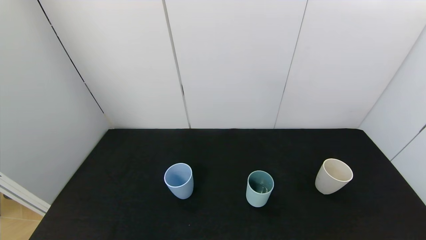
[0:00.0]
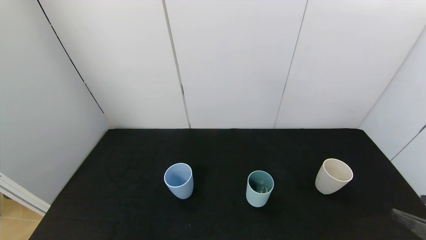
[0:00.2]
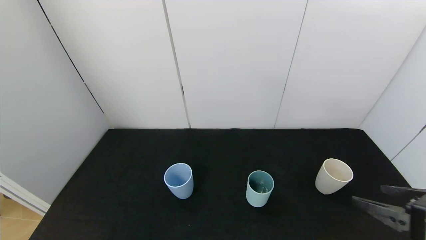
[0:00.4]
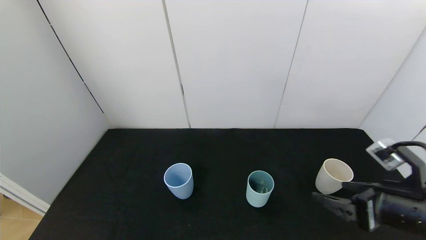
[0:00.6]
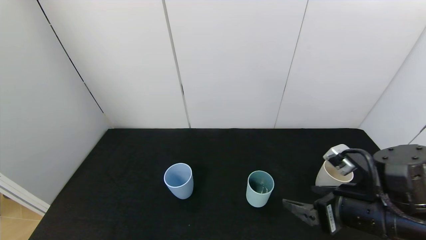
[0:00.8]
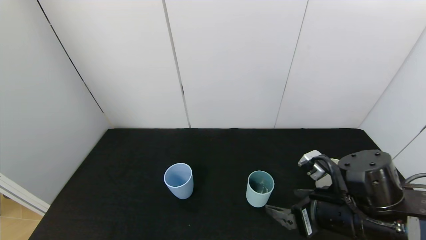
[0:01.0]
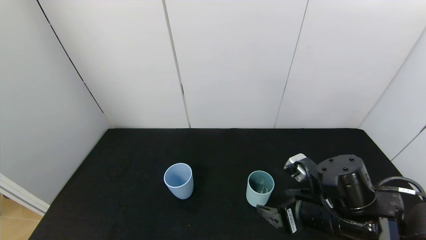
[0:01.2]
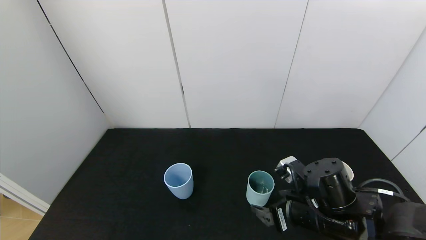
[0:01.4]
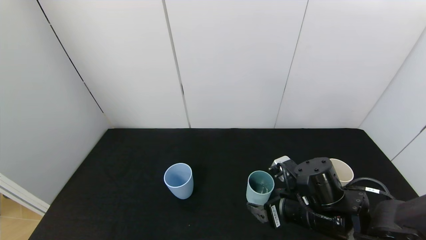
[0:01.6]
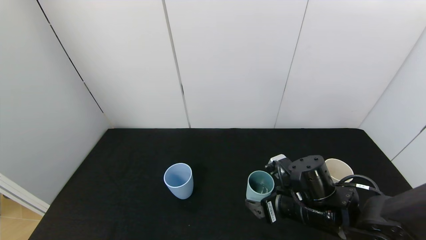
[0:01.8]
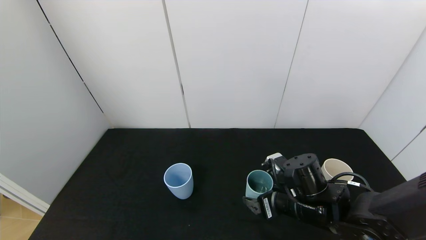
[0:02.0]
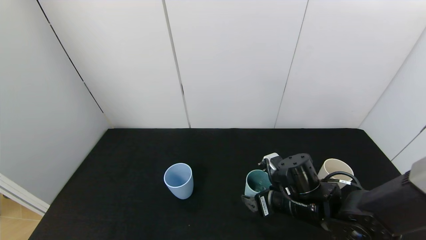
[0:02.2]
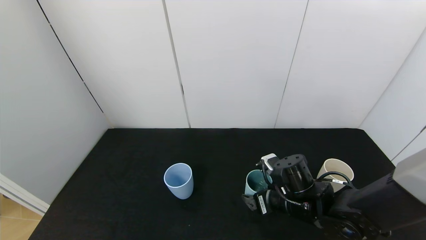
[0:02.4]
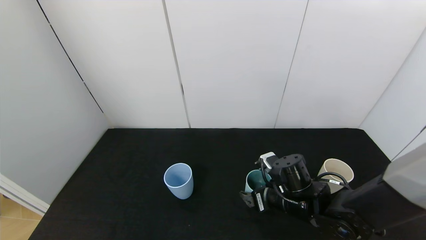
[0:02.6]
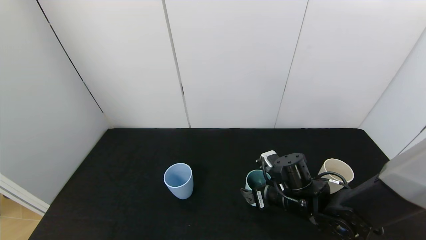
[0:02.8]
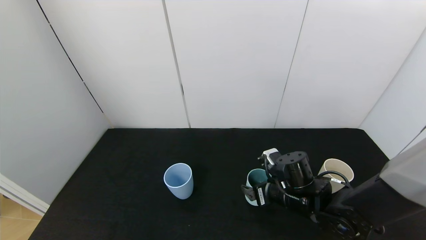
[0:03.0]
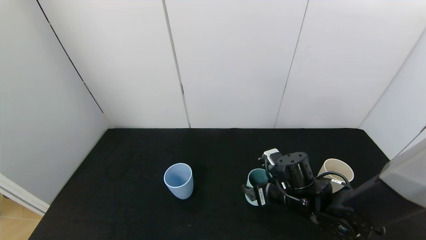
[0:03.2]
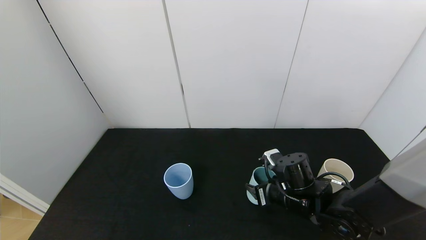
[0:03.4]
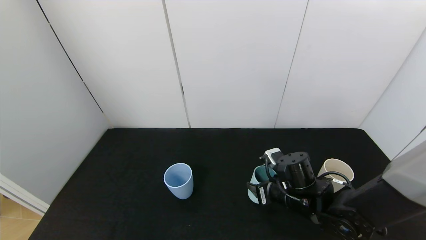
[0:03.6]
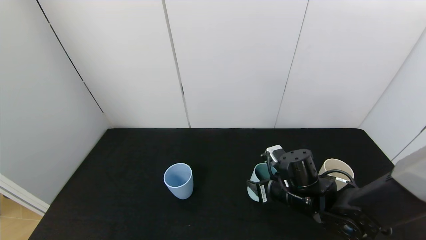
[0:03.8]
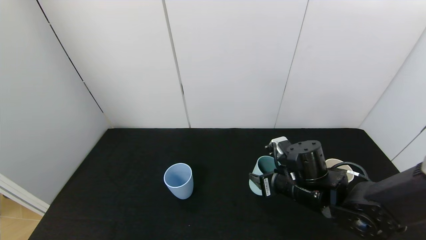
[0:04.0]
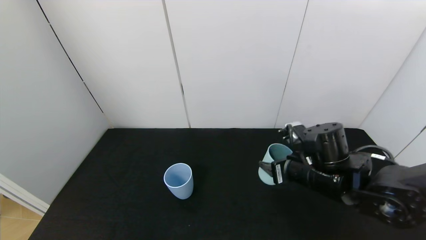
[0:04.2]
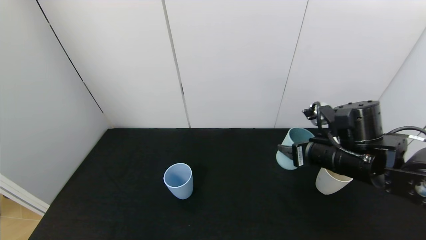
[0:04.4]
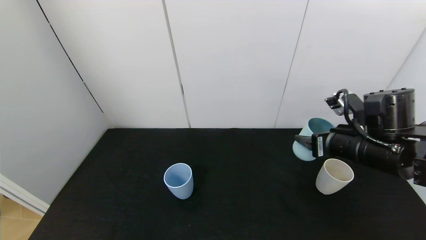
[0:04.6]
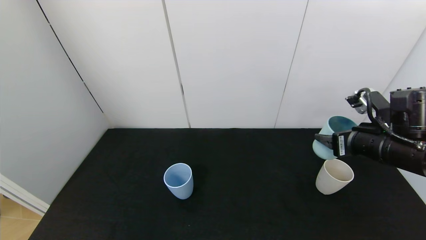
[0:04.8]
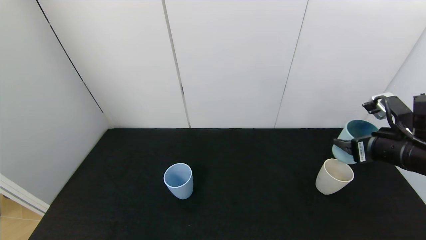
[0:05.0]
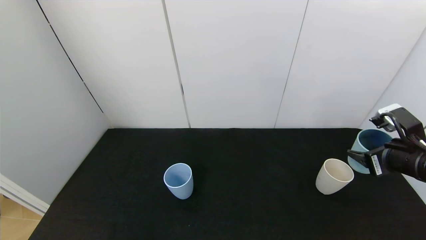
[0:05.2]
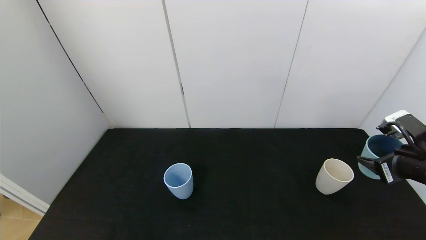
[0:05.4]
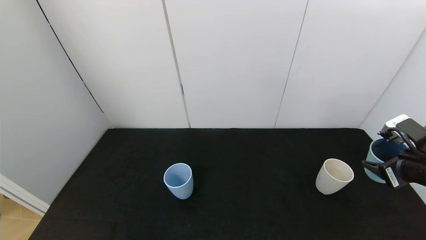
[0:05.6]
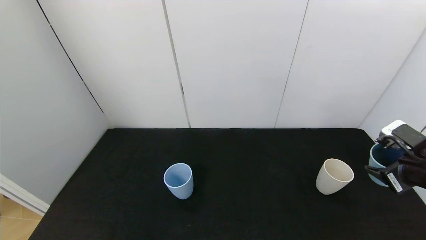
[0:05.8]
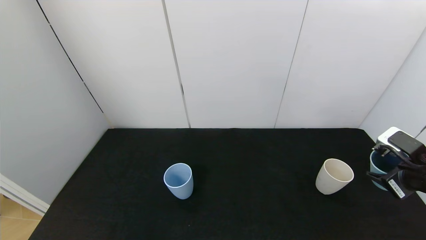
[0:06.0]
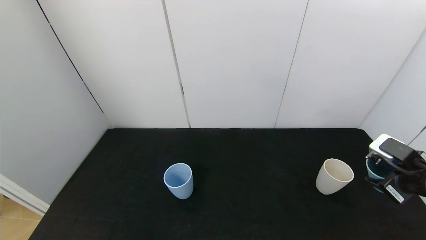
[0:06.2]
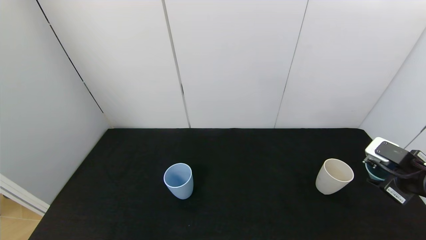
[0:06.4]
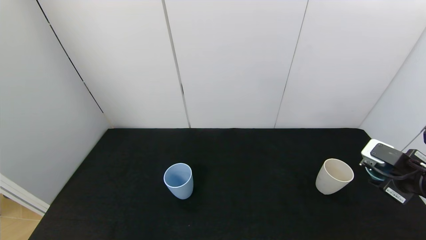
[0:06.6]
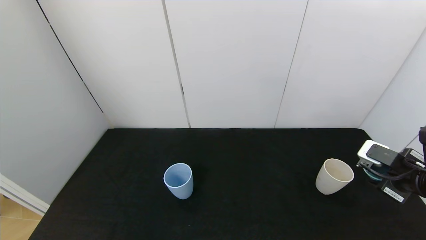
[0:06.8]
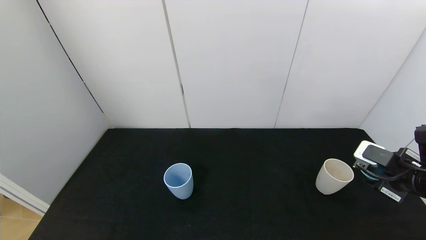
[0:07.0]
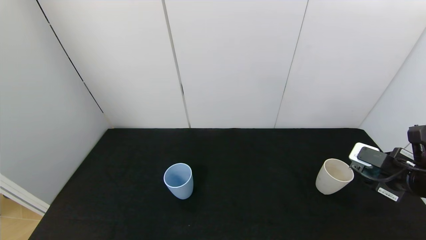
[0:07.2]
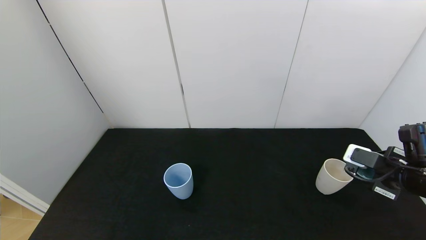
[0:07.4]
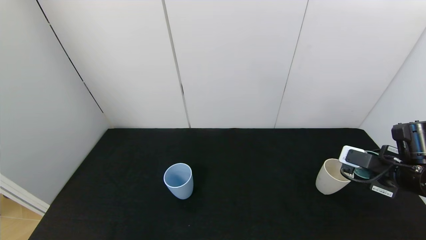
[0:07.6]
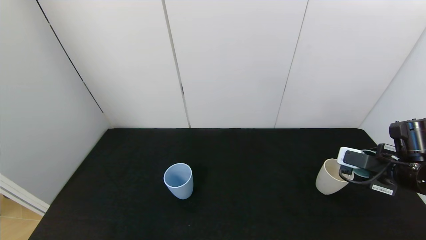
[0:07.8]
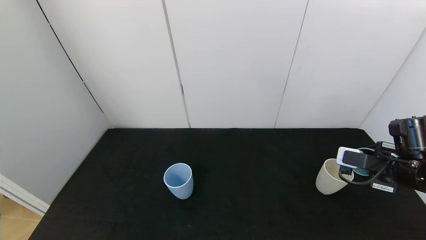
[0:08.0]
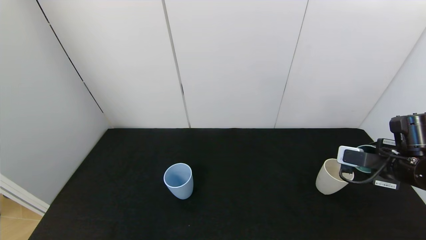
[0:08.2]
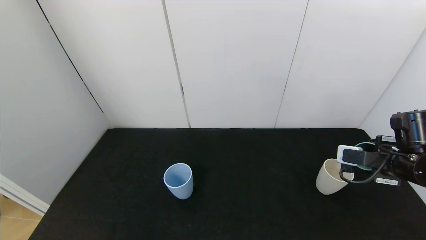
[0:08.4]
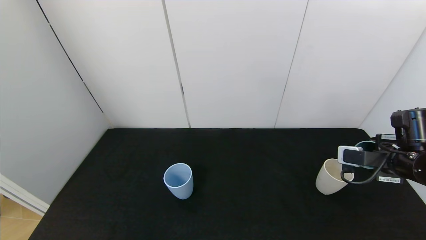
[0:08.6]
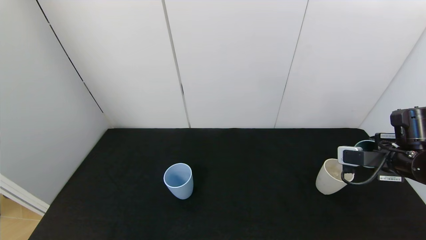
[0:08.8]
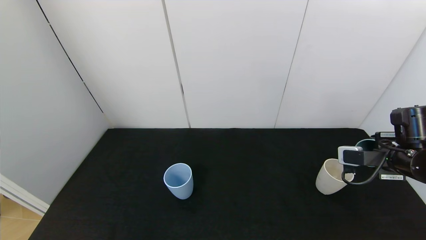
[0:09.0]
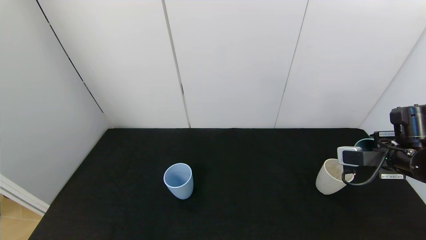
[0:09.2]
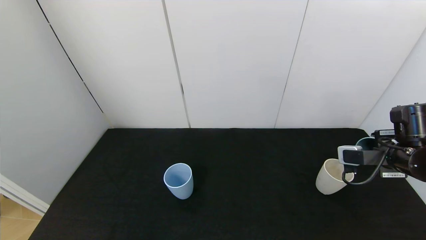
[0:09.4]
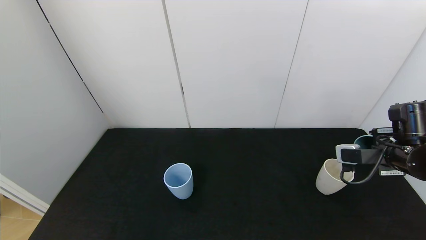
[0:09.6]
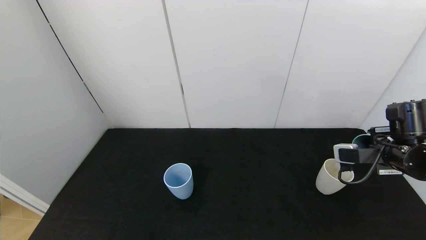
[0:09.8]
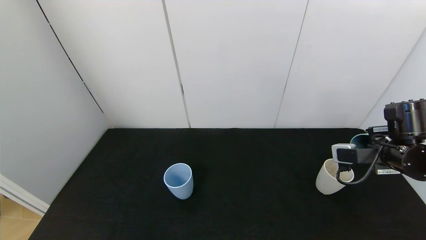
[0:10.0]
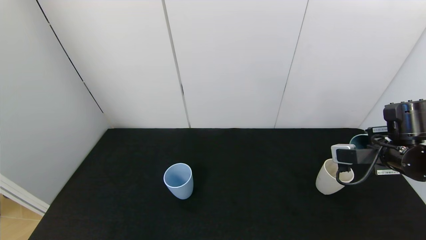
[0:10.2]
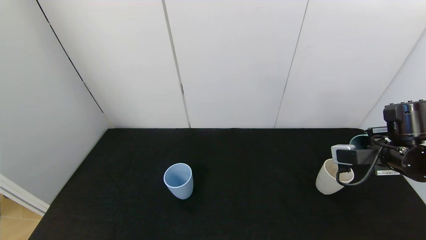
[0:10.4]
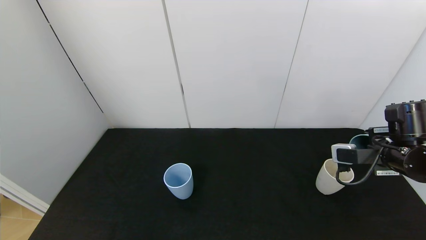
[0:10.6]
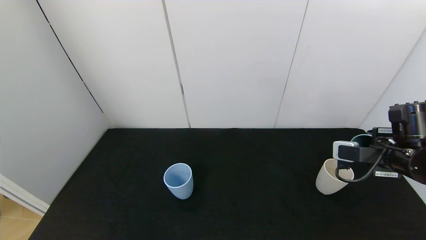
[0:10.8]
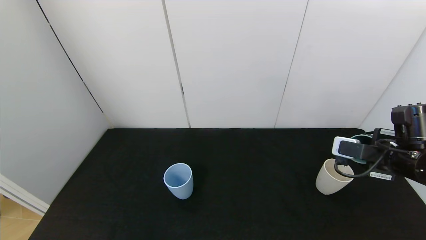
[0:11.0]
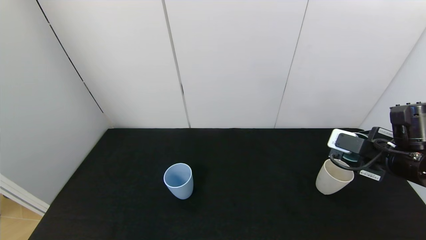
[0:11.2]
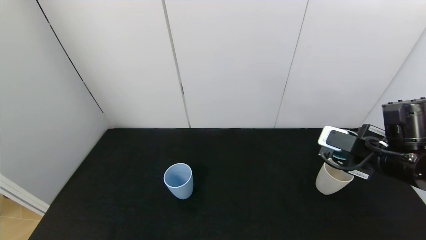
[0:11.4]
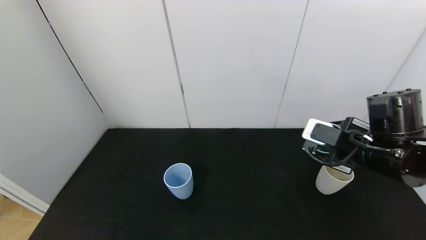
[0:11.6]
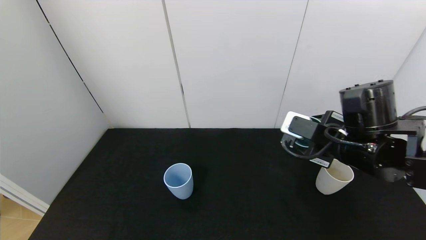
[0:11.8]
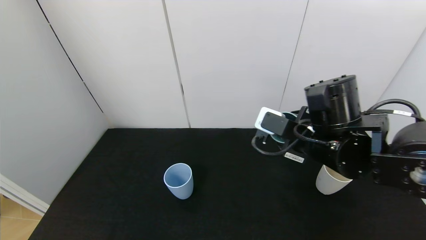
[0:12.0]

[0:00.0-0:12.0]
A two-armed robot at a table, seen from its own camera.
Task of the whole recording: use the gripper to pour the water into the other two cups on black table.
Step, 0:00.0 to 0:03.6: Grasp the green cup with the right gripper.
Step, 0:03.8 to 0:10.6: Pour water from green cup to white cup with the right gripper.
0:00.0 to 0:01.6: The right gripper heads forward, to the left and downward, covering some 30 cm.
0:01.6 to 0:03.0: The right gripper travels forward by roughly 5 cm.
0:03.0 to 0:04.4: The right gripper moves upward and to the right, approximately 15 cm, and closes its fingers.
0:04.4 to 0:06.0: The right gripper moves to the right and backward, some 15 cm.
0:09.0 to 0:10.4: The grippers make only small movements.
0:10.4 to 0:12.0: The right gripper travels to the left by roughly 15 cm.

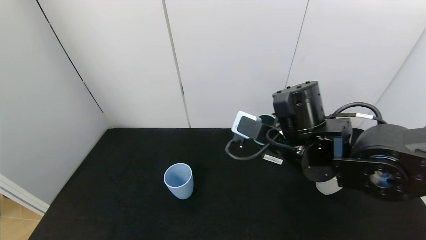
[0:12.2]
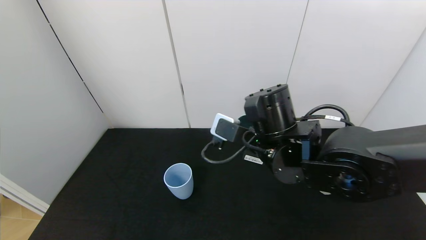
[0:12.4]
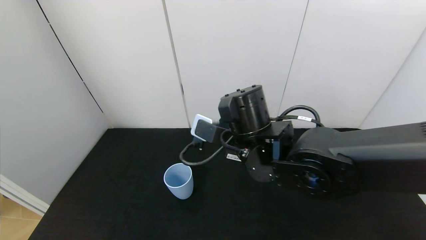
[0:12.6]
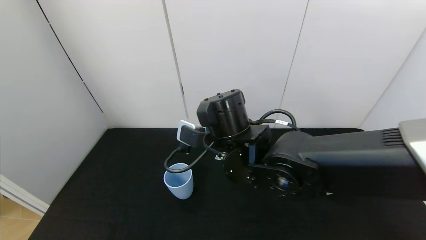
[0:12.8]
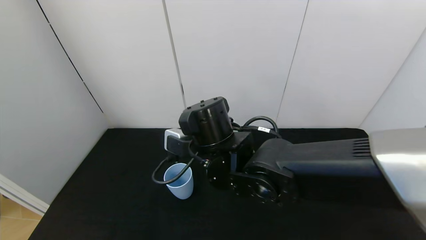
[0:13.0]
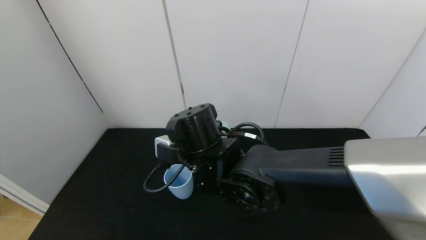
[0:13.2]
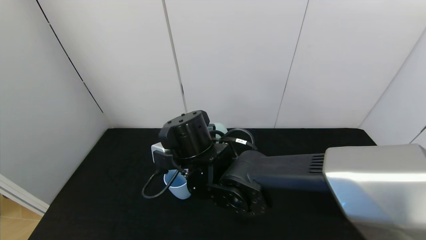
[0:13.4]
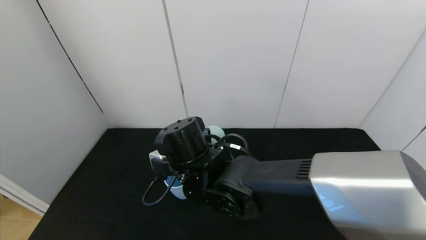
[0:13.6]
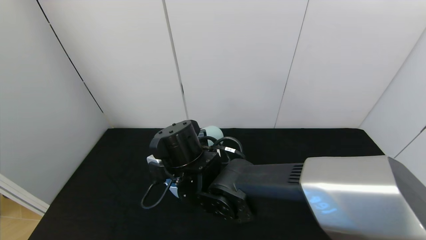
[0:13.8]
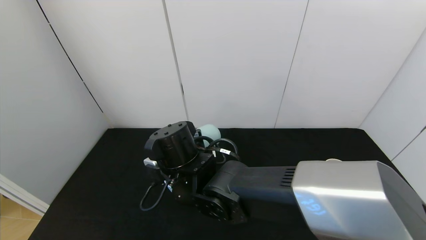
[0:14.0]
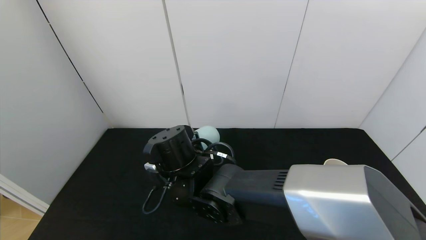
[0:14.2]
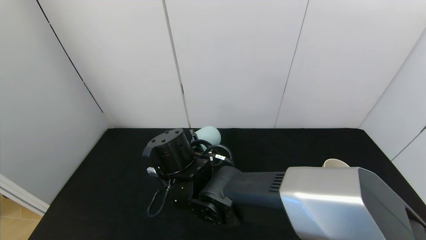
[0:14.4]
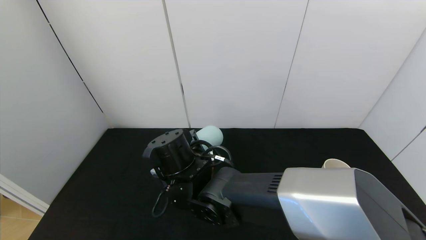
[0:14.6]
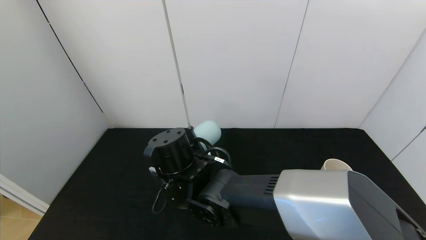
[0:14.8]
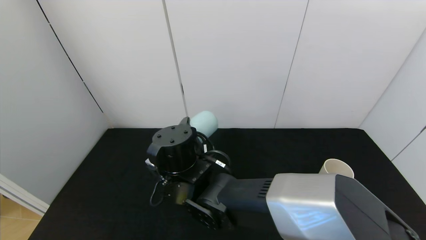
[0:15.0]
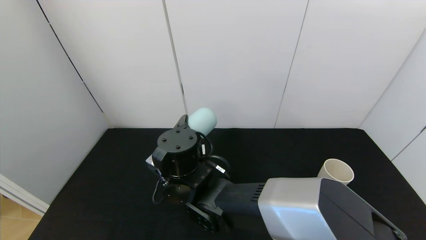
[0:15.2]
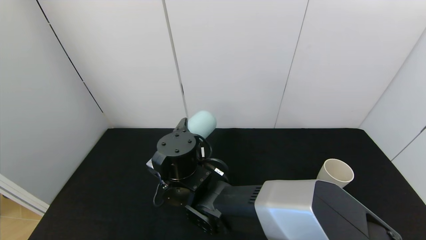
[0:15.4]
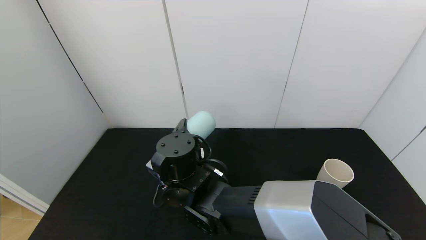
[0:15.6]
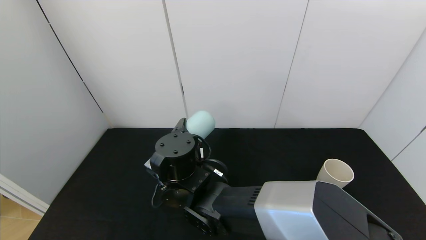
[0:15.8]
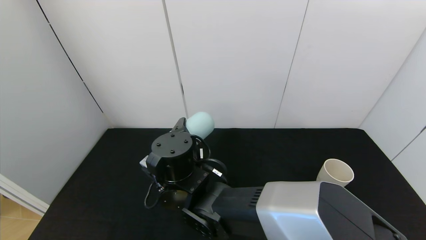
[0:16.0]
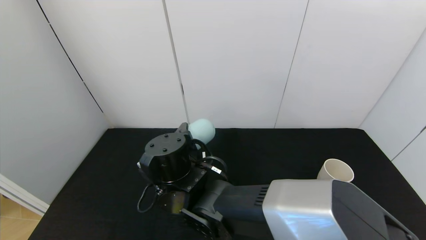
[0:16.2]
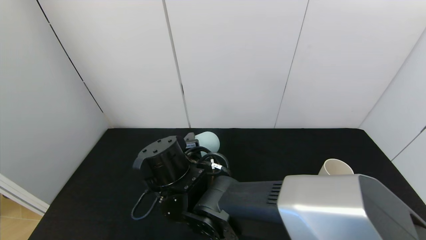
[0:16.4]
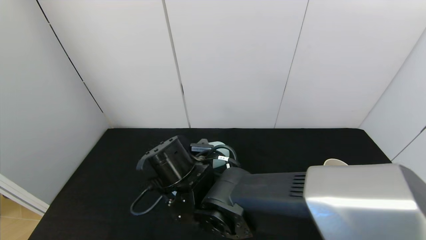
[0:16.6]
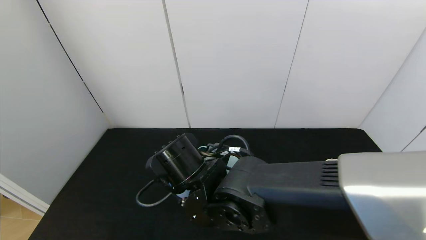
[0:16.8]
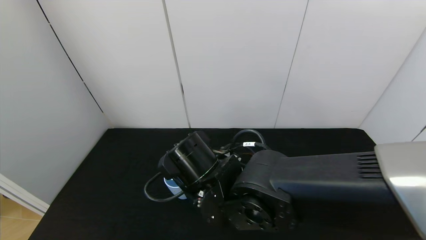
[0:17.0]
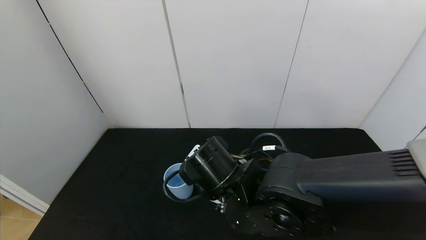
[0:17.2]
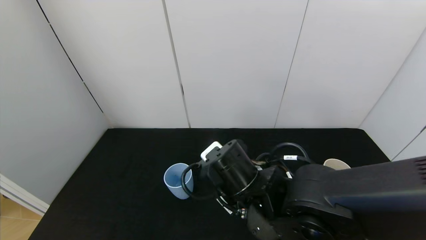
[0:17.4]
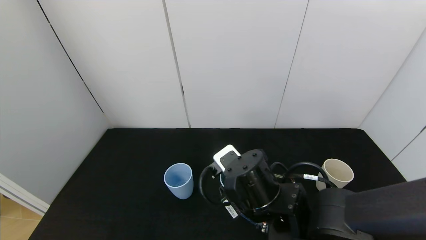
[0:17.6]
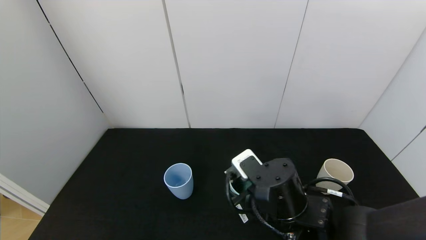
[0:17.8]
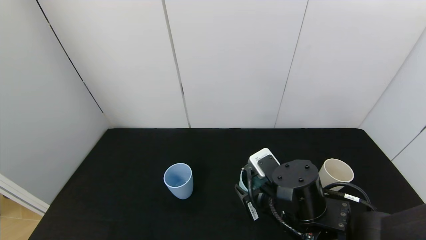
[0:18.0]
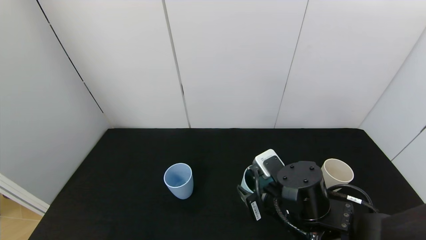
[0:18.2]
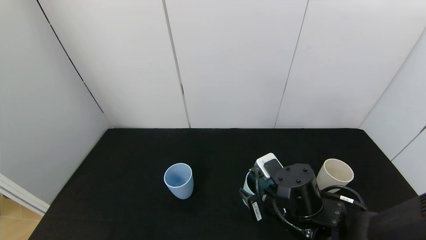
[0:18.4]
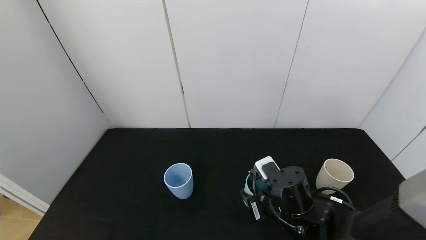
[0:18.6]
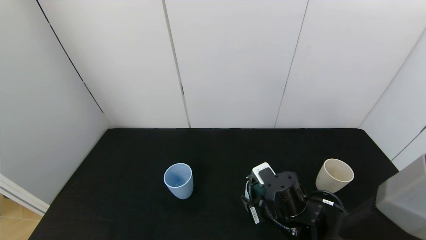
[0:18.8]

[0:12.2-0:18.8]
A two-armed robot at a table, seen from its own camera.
Task of the whole recording: use the gripper to pour the water into the other two cups on black table.
Step, 0:12.2 to 0:16.0: Pour water from green cup to blue cup with the right gripper.
0:12.2 to 0:13.8: The right gripper is displaced to the left by some 15 cm.
0:15.4 to 0:17.2: The right gripper is displaced to the right and backward by some 10 cm.
0:17.2 to 0:18.8: The right gripper goes some 15 cm to the right and downward.
